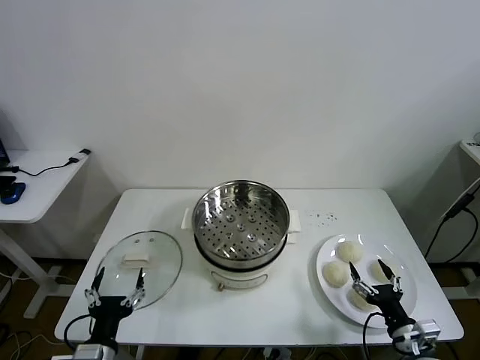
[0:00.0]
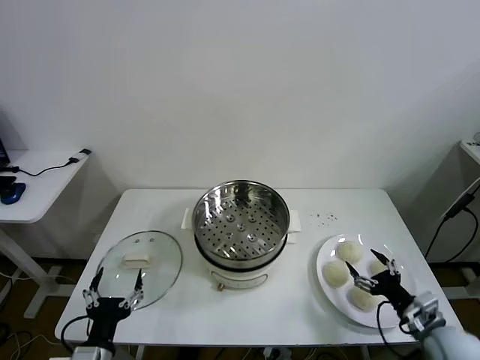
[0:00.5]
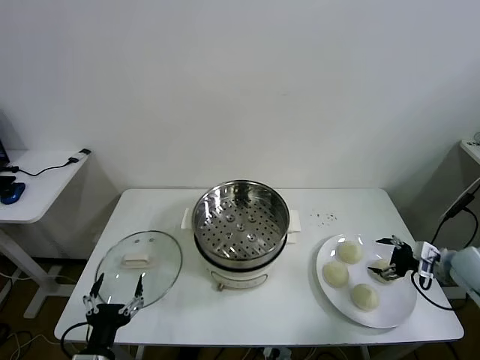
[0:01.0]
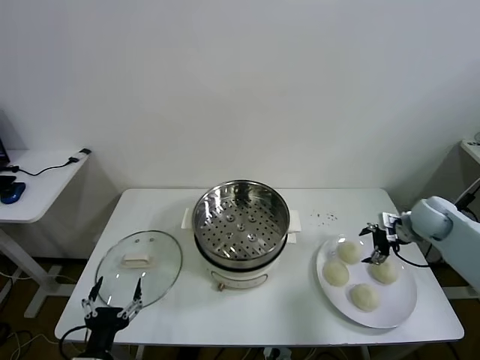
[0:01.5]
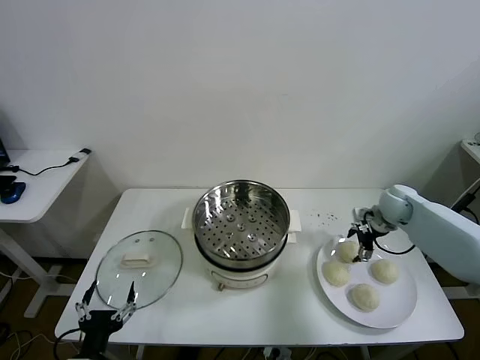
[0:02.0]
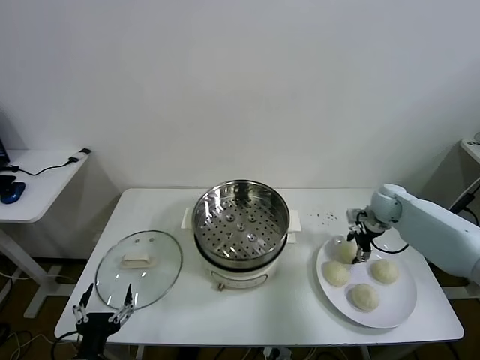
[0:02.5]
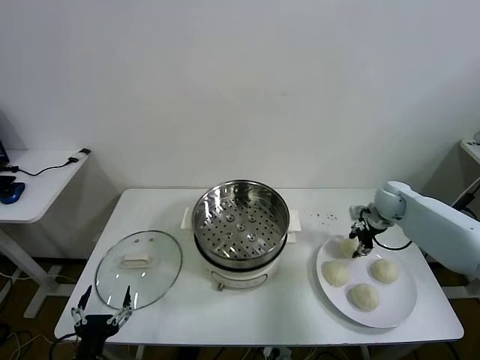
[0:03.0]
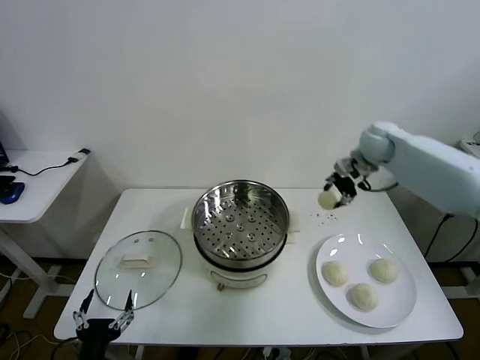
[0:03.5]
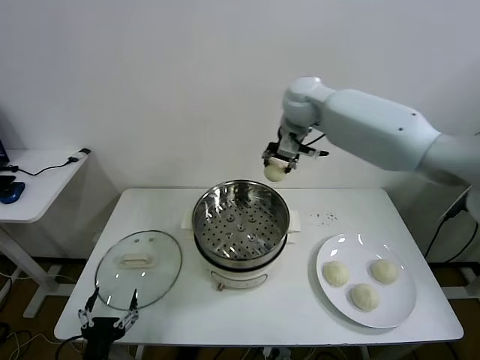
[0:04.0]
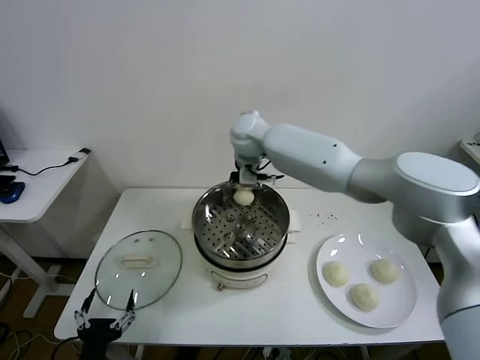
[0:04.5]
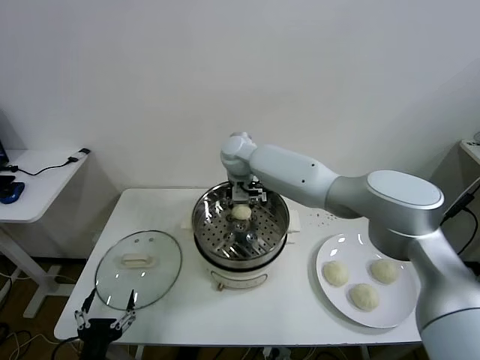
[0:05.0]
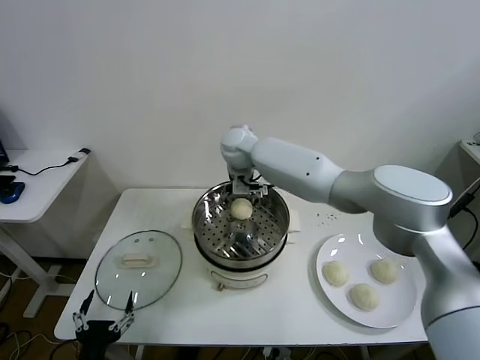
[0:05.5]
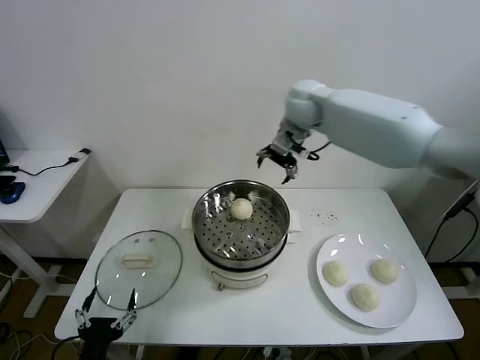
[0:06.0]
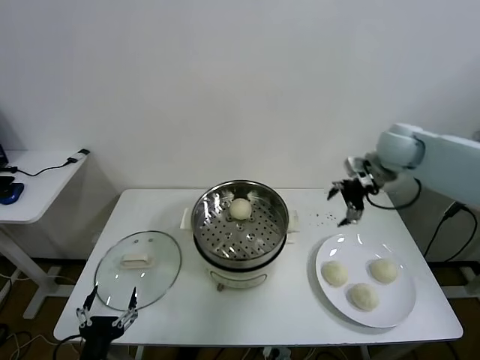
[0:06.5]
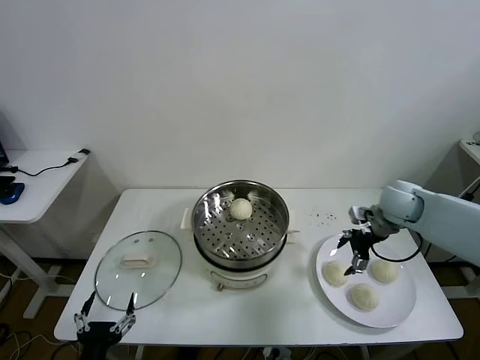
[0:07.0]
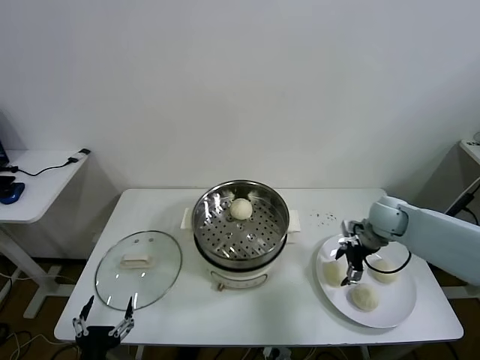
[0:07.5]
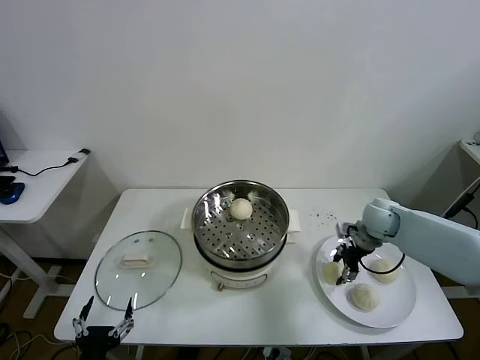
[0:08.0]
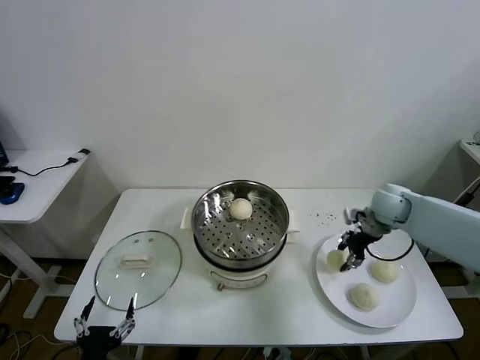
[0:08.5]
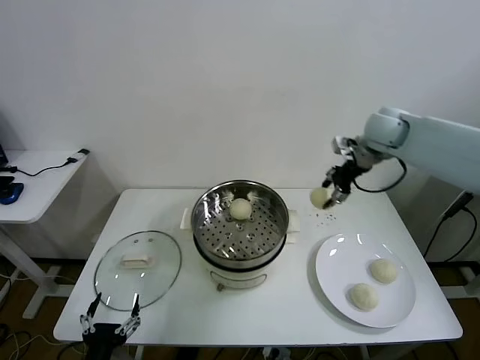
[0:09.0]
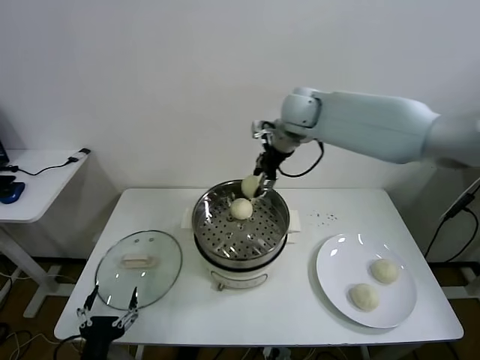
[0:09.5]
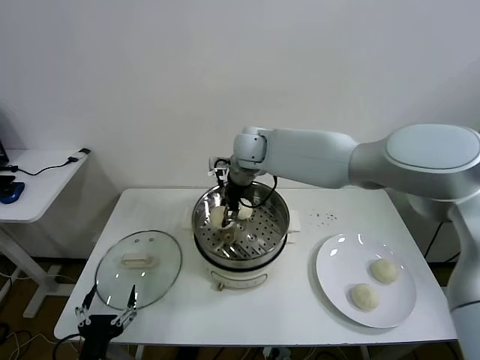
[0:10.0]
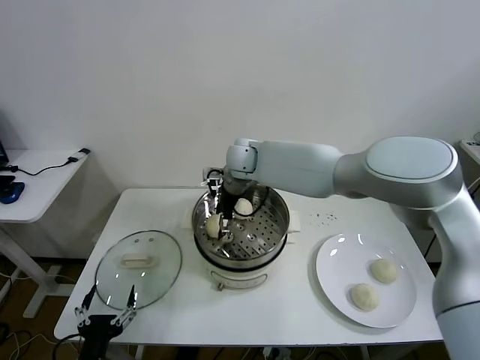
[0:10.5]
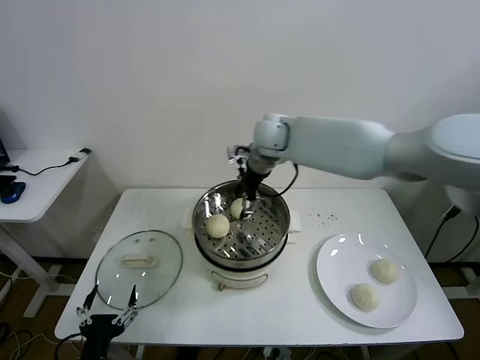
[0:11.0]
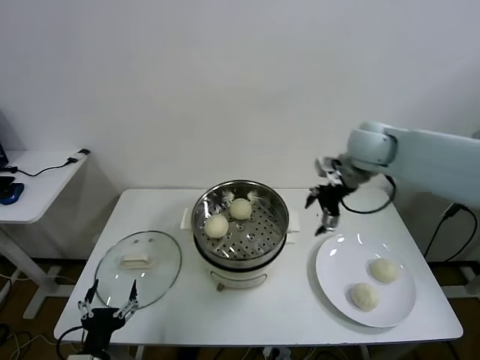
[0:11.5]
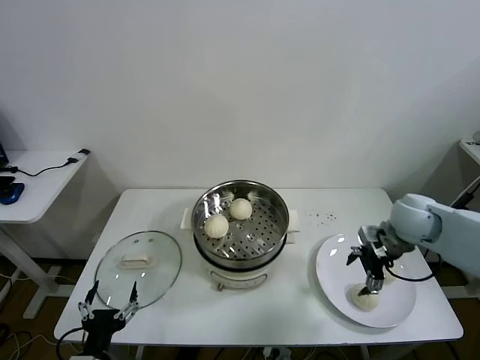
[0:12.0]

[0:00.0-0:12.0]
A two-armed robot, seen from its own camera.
Task of the whole recording: take steamed baozi put them in steamer then cover it.
Step, 0:00.0 to 0:02.5: Grasp the baozi in the plate with right gripper.
Step, 0:03.0 to 0:05.0: Place the baozi on the steamer with right gripper.
Step, 0:05.5 to 0:08.0: Grasp the baozi in the plate with right gripper.
Step, 0:08.5 to 0:10.5: Place the baozi on the steamer with right gripper.
0:02.0 to 0:04.0: The right gripper travels to the left and upward by some 40 cm, and closes up.
0:04.0 to 0:06.0: The right gripper goes roughly 10 cm to the right, and opens up.
0:06.0 to 0:08.0: The right gripper goes about 30 cm downward and to the right, and closes its fingers.
0:08.0 to 0:10.0: The right gripper shifts roughly 35 cm to the left and upward.
0:10.0 to 0:12.0: The right gripper heads to the right and backward, covering approximately 40 cm, and opens up.

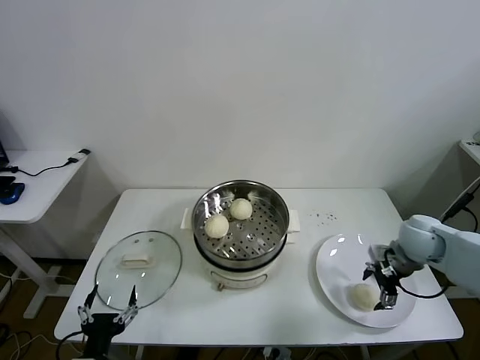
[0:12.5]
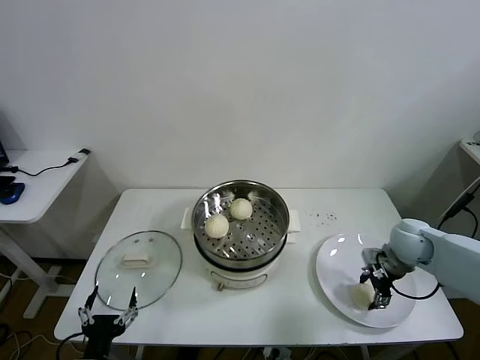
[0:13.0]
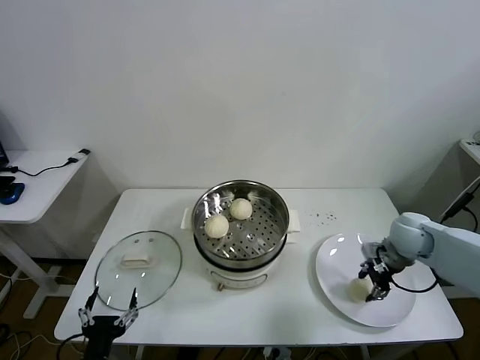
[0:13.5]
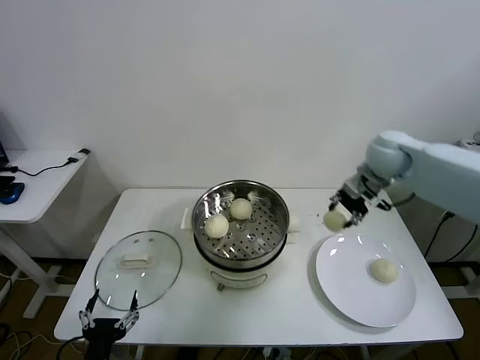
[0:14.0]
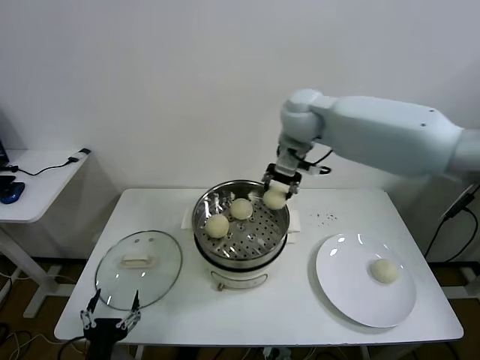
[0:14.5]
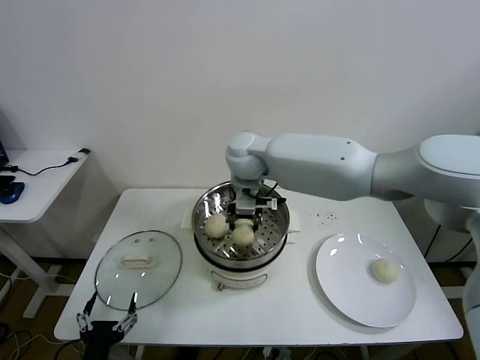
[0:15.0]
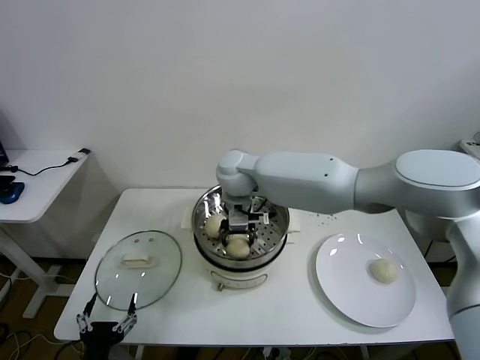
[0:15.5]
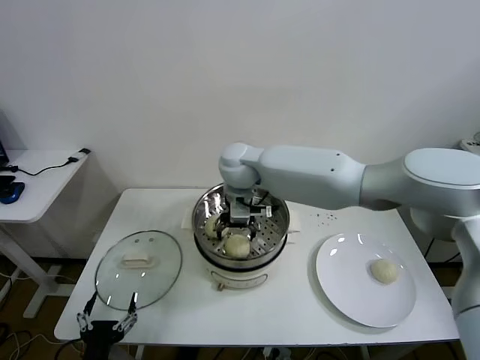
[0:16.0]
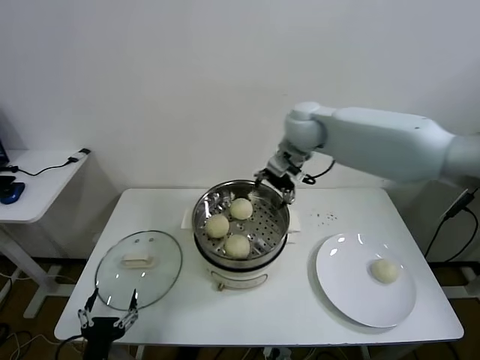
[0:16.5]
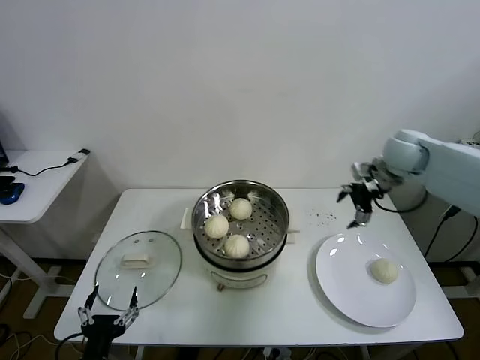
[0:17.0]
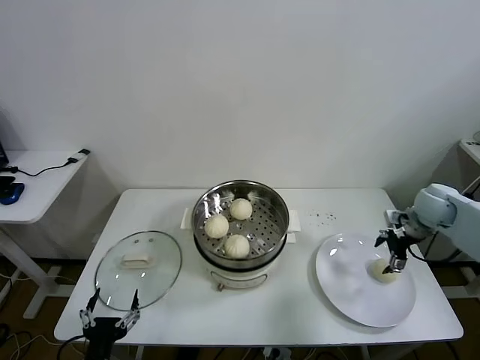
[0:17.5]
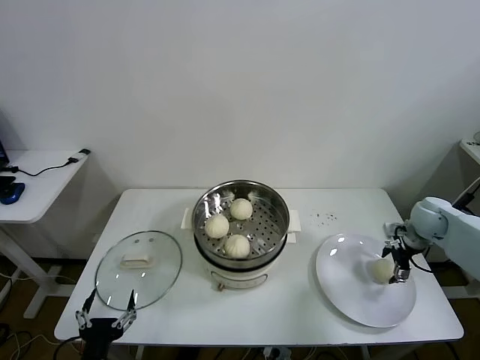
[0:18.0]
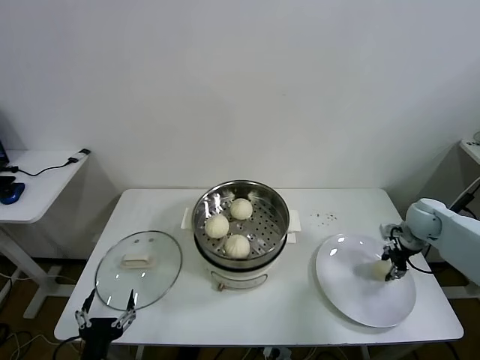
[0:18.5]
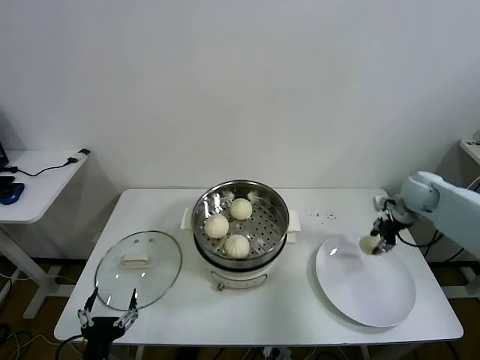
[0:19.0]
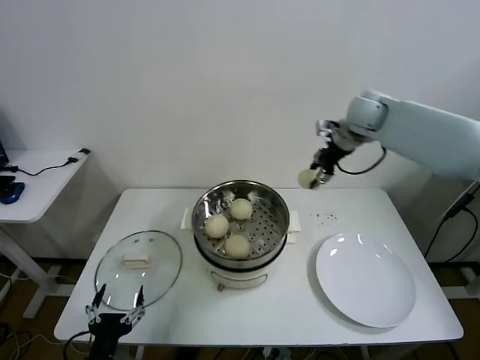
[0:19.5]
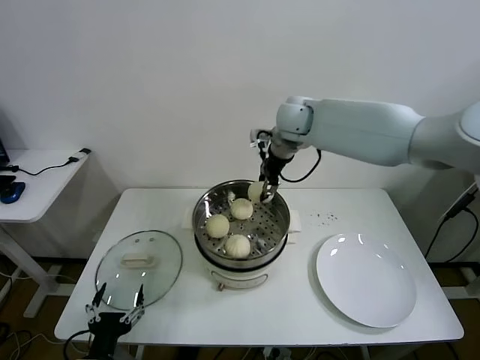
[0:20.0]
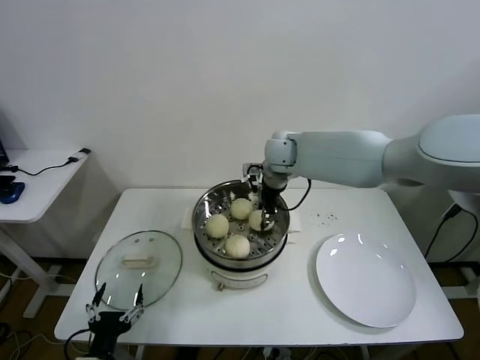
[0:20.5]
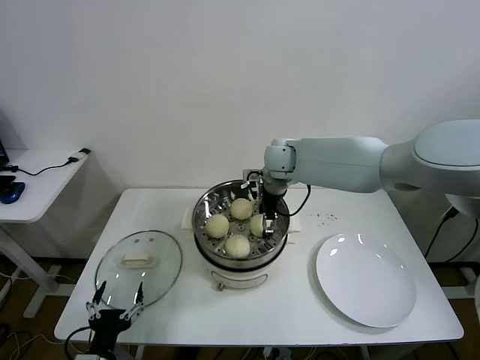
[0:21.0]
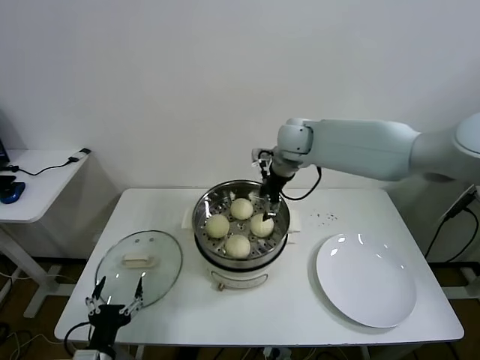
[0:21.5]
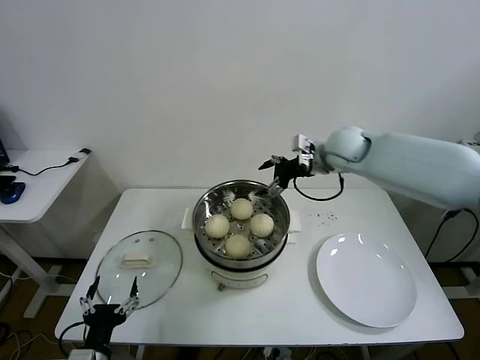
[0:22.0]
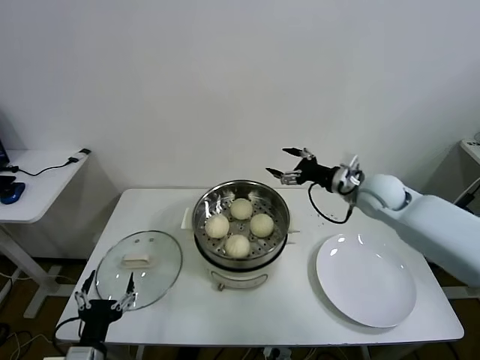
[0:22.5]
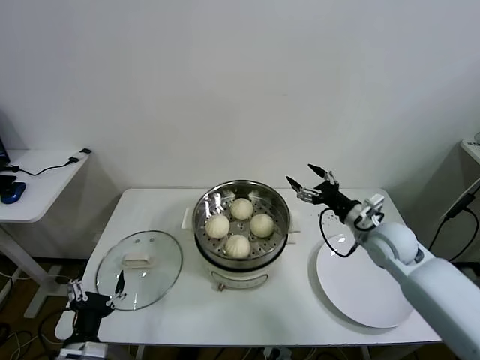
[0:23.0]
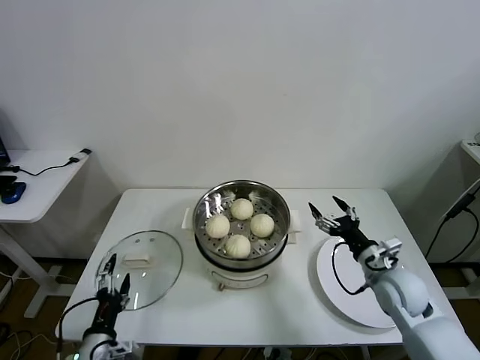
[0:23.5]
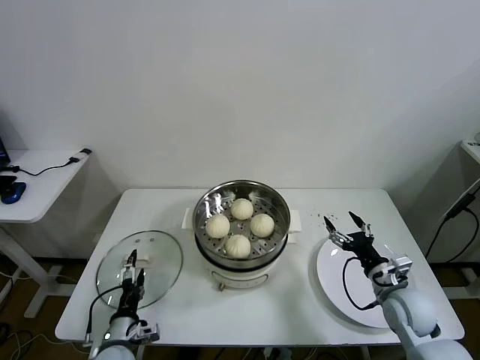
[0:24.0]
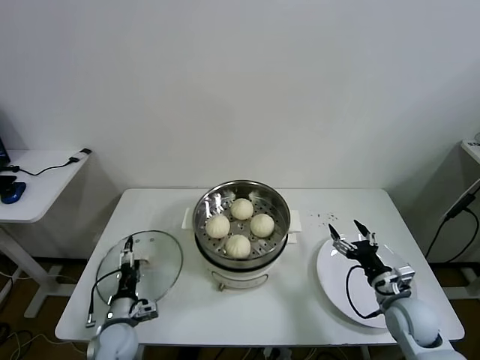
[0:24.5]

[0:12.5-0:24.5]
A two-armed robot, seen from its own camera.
Task of the whole recording: take steamed baozi put them in steamer then cover it.
Step, 0:13.5 to 0:15.5: Place the baozi on the steamer with right gripper.
Step, 0:16.0 to 0:18.5: Grasp the baozi in the plate with right gripper.
Step, 0:19.0 to 0:21.0: Place the baozi on the steamer with right gripper.
0:12.5 to 0:14.5: The right gripper moves to the left, upward and forward, about 40 cm, and closes.
0:14.5 to 0:16.5: The right gripper reaches some 10 cm to the left, then returns, and opens its fingers.
0:16.5 to 0:18.5: The right gripper travels to the right and downward by roughly 40 cm, and closes up.
0:18.5 to 0:20.5: The right gripper shifts some 40 cm to the left and upward.
0:20.5 to 0:22.5: The right gripper moves to the right and backward, some 25 cm, and opens its fingers.
0:22.5 to 0:24.5: The right gripper shifts about 25 cm backward and downward. Meanwhile the left gripper goes approximately 15 cm forward and downward.

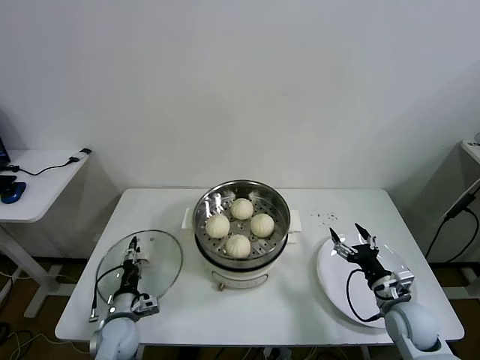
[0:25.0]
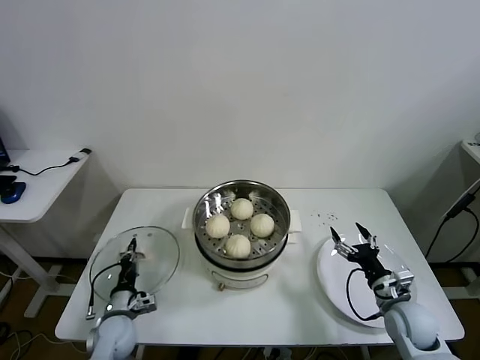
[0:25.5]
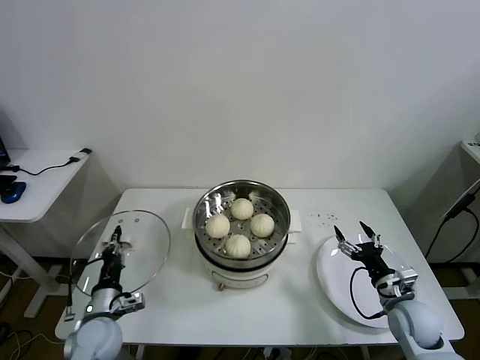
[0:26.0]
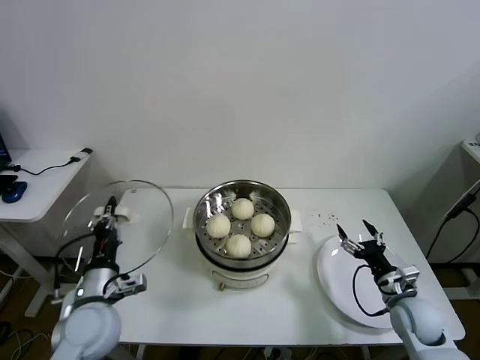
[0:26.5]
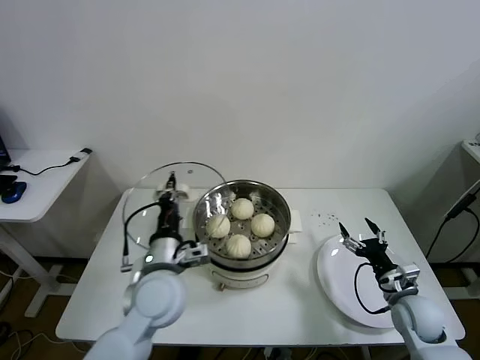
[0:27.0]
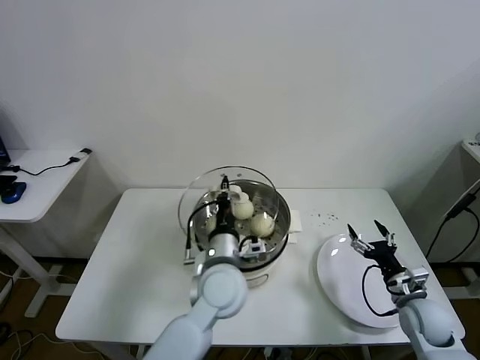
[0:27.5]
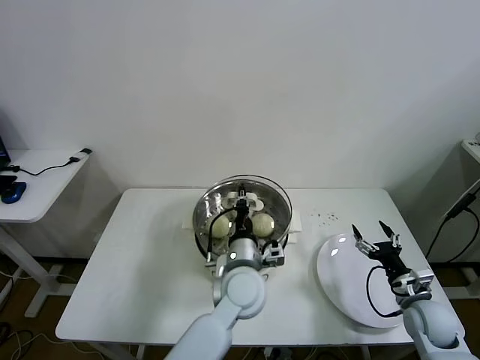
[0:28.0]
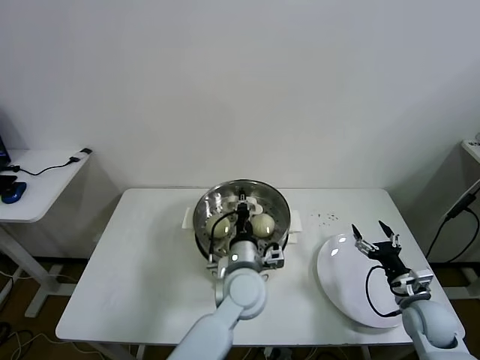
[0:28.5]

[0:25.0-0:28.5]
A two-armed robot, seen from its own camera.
Task of the whole recording: take steamed baozi put them in steamer then cover it.
0:25.0 to 0:27.0: The left gripper moves upward and to the right, some 25 cm, and closes.
0:27.0 to 0:28.5: The left gripper travels to the right by some 15 cm.
